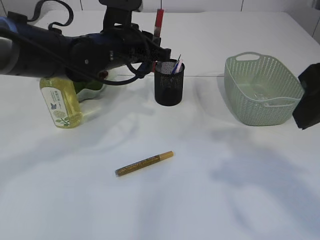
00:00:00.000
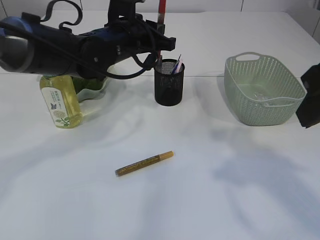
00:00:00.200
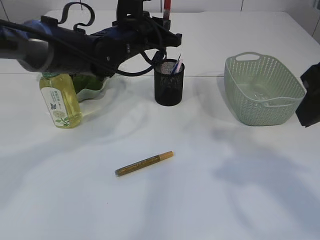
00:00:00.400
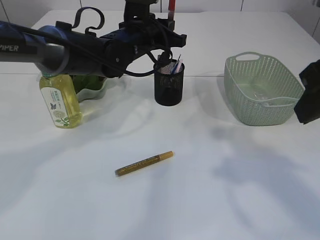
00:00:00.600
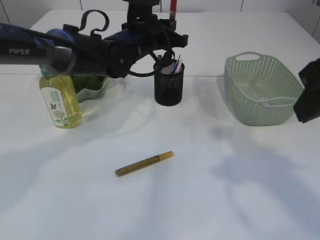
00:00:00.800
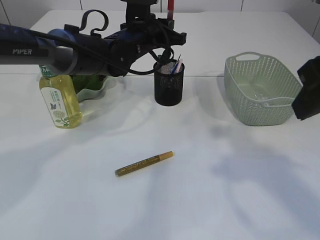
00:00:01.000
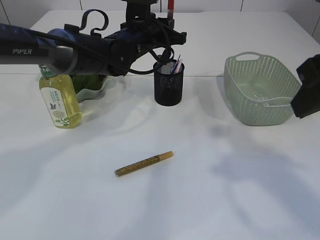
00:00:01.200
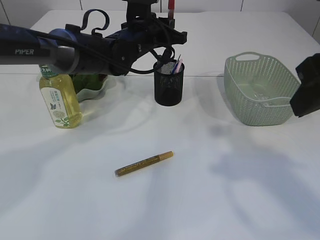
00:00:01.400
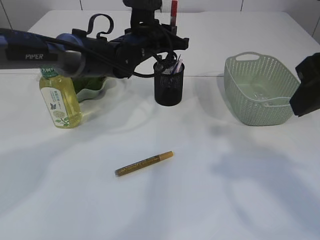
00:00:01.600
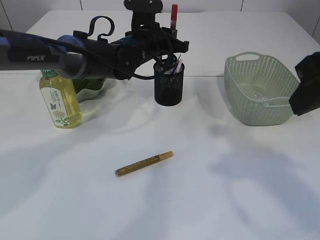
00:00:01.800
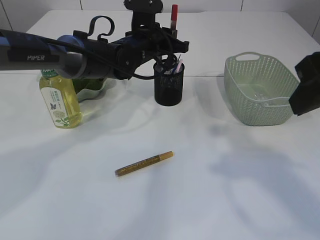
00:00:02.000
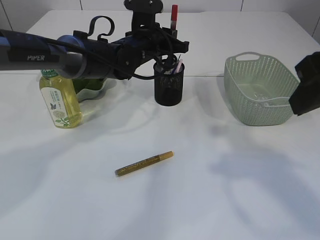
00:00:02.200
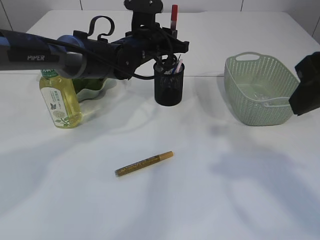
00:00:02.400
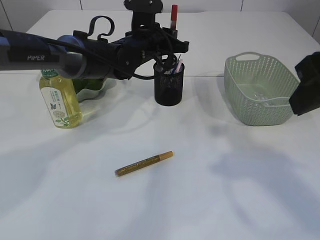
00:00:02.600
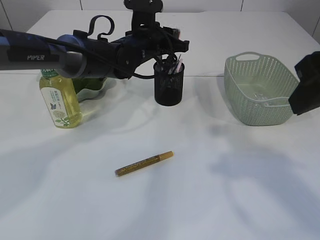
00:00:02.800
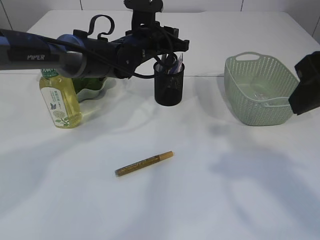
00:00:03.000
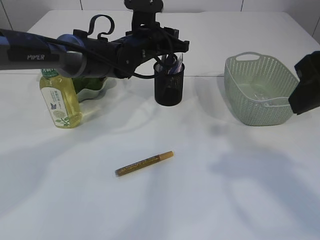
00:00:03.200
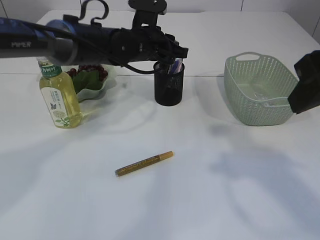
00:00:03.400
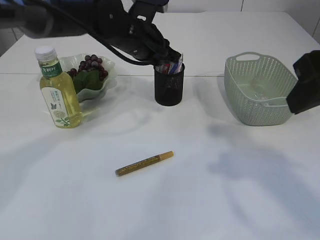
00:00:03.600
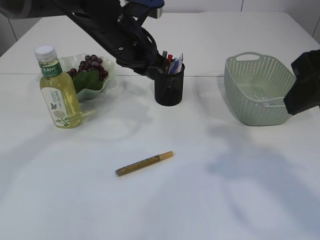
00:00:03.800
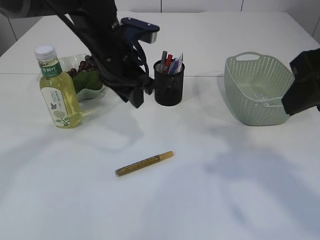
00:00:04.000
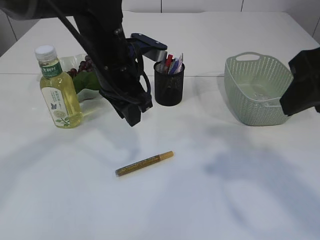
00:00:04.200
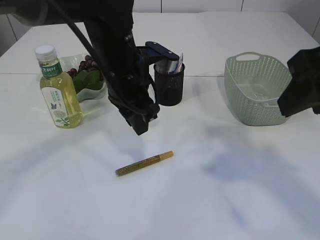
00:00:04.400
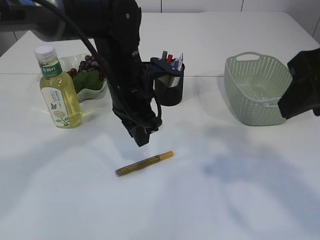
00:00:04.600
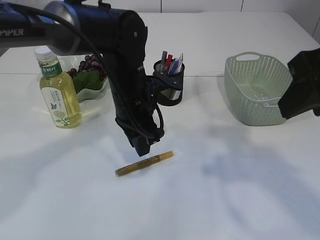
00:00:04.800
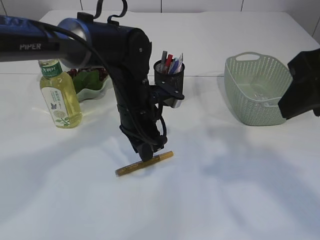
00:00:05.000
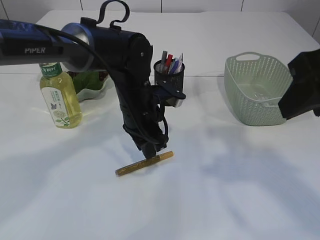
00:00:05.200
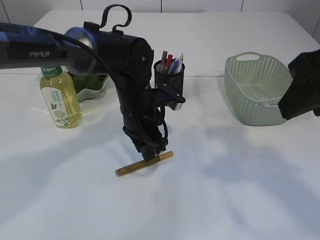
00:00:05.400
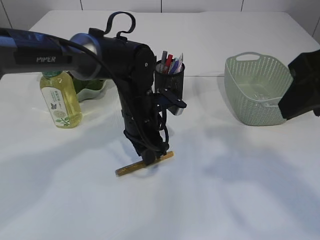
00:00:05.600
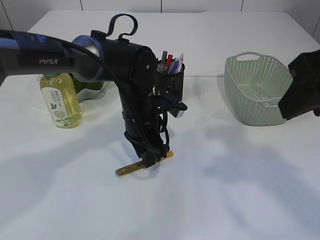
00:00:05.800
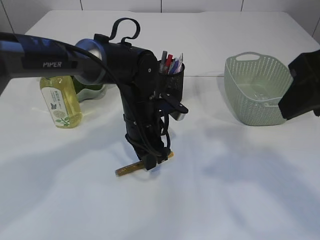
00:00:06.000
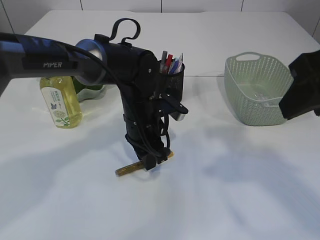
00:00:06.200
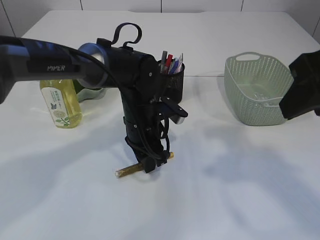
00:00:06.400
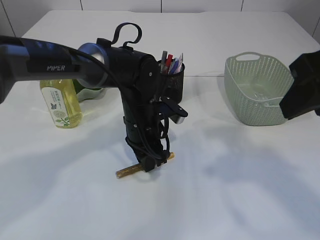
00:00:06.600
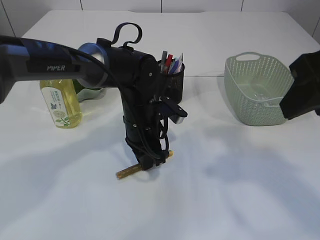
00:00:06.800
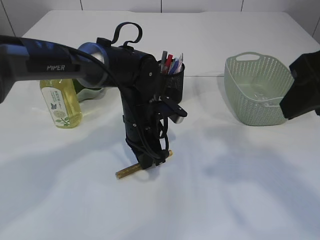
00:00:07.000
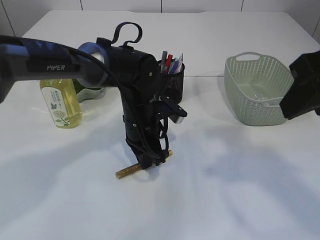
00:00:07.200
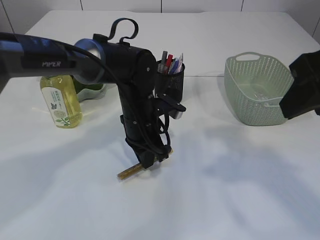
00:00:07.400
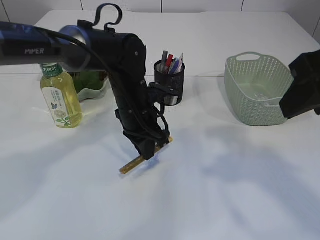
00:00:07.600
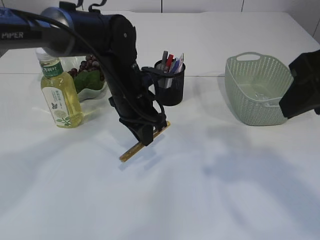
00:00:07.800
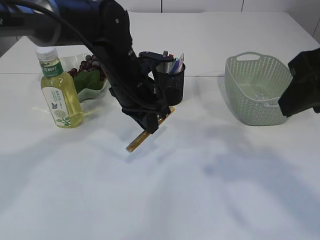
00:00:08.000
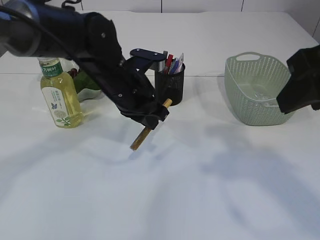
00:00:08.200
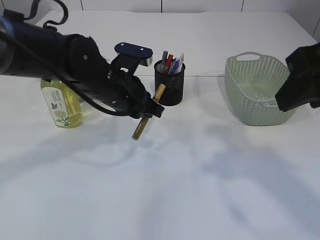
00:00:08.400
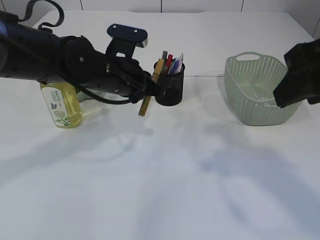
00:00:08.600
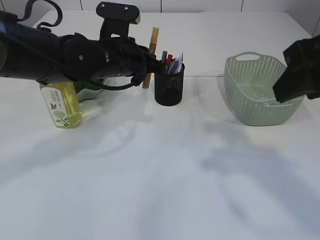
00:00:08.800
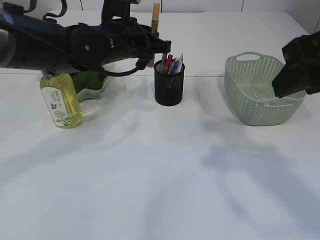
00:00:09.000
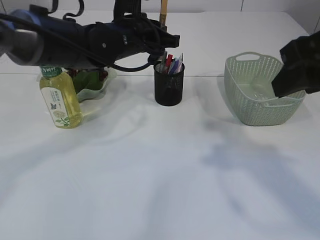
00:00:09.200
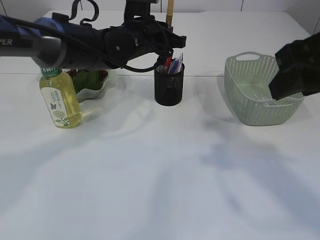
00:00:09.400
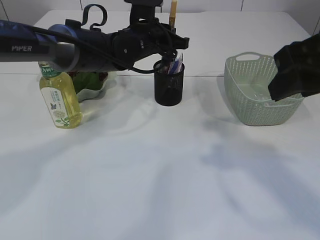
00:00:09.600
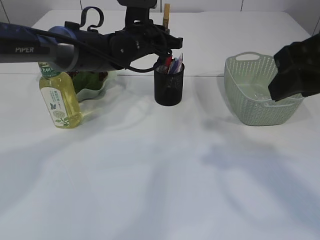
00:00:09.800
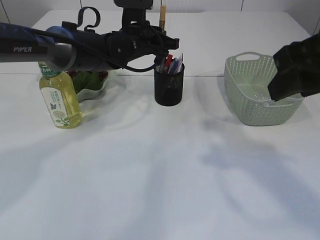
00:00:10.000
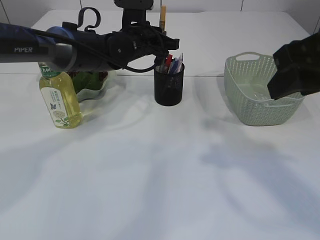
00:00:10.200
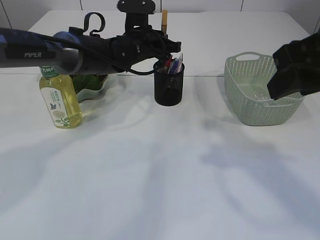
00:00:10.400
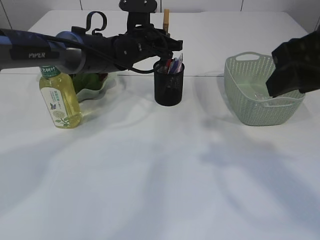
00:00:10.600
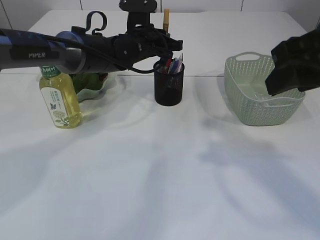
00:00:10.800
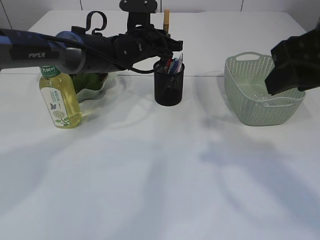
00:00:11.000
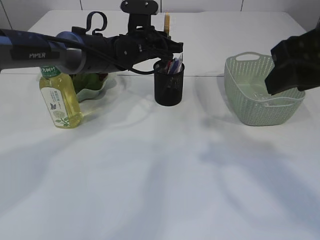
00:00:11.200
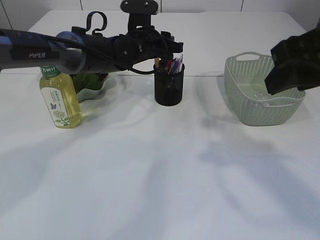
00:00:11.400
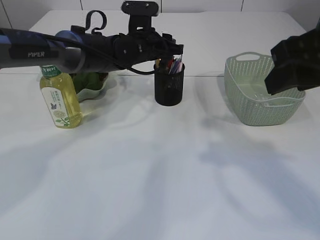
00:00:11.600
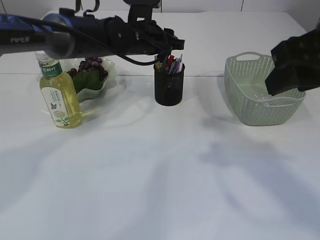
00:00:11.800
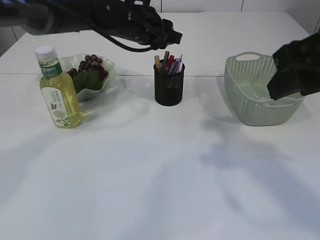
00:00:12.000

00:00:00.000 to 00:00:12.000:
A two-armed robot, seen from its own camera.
Step, 00:00:00.000 to 00:00:04.000: place the red glue into the pen holder.
Step, 00:00:04.200 to 00:00:08.200: pick up the yellow glue.
00:00:00.000 to 00:00:01.600: The left gripper travels forward by some 5 cm.
00:00:01.600 to 00:00:03.000: Neither gripper changes place.
00:00:03.000 to 00:00:04.400: The left gripper moves backward, some 10 cm.
00:00:04.400 to 00:00:06.000: The left gripper heads downward, covering roughly 10 cm.
00:00:06.000 to 00:00:07.600: The grippers move only a little.
00:00:07.600 to 00:00:09.000: The left gripper heads upward, covering roughly 10 cm.
00:00:09.000 to 00:00:10.400: The left gripper is displaced forward by roughly 10 cm.
00:00:10.400 to 00:00:12.000: The left gripper goes some 5 cm upward, and opens its fingers.

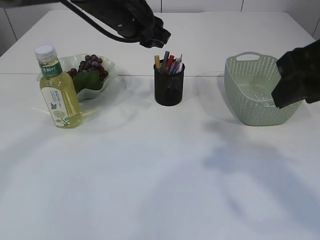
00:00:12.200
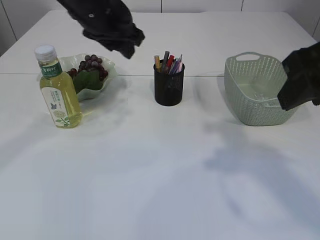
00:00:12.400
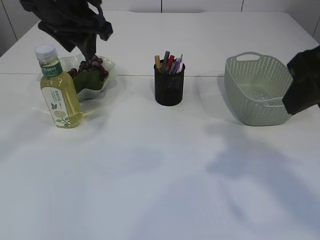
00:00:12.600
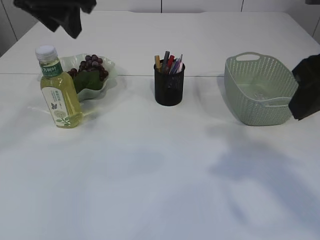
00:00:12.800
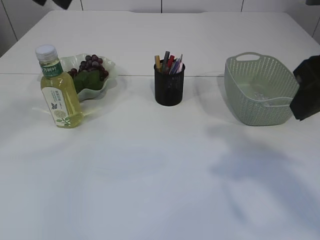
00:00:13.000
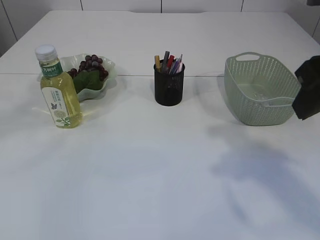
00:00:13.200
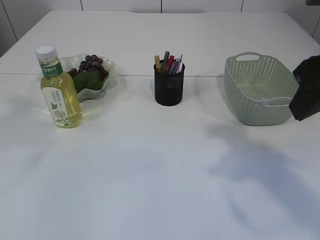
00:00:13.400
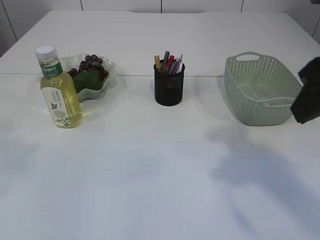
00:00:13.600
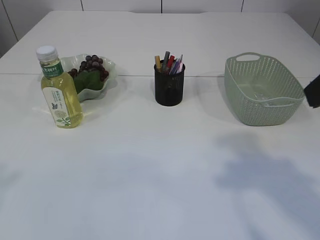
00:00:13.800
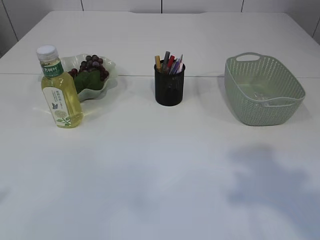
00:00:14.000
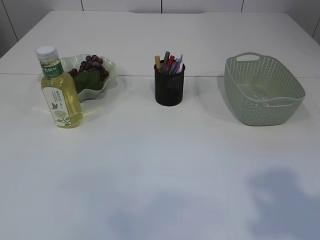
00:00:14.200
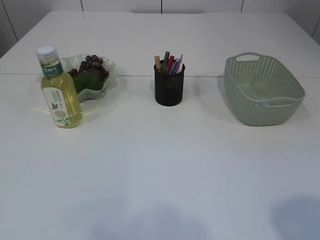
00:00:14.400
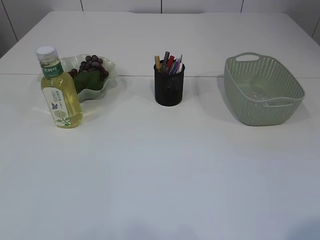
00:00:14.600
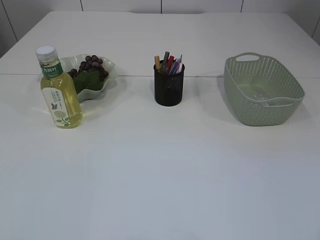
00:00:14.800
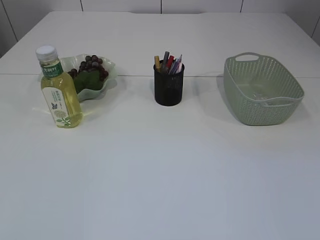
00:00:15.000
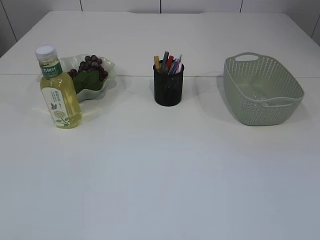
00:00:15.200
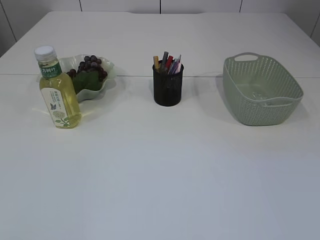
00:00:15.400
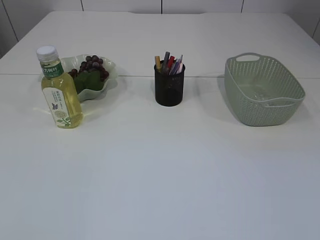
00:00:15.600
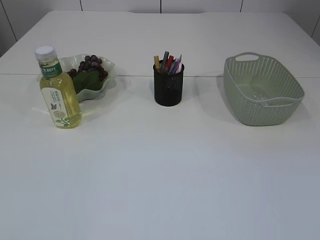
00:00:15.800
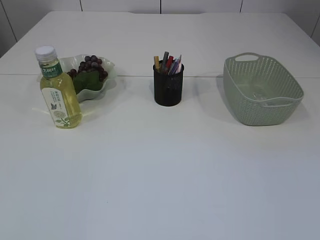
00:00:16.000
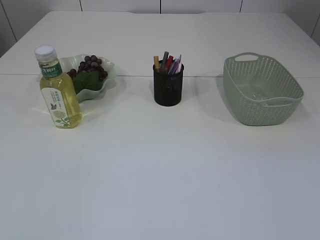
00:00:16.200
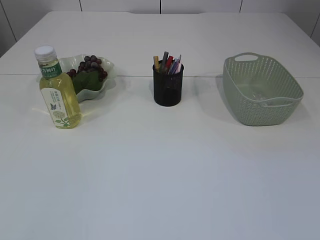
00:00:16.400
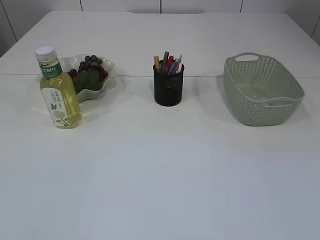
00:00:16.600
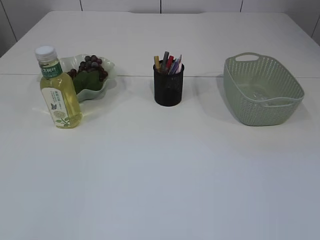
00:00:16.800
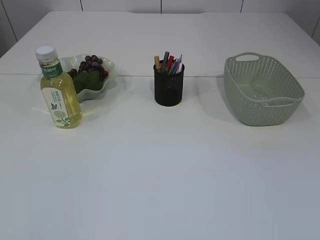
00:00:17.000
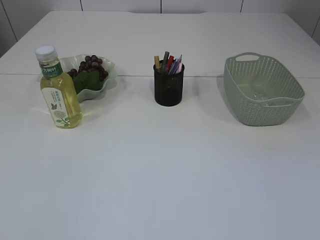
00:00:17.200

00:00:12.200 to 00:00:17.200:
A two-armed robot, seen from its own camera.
00:00:12.200 to 00:00:13.800: The left gripper goes roughly 40 cm backward, to the left and upward; the right gripper moves about 5 cm.

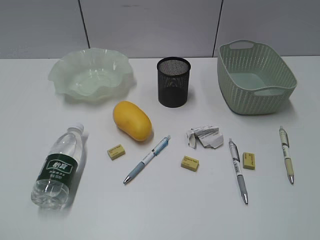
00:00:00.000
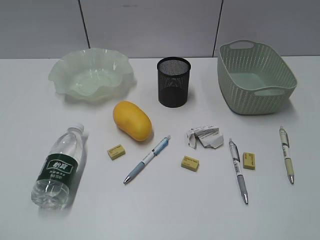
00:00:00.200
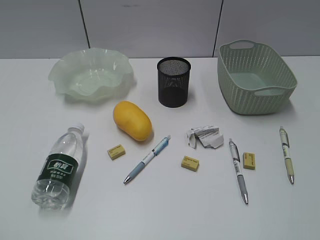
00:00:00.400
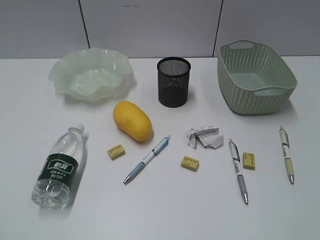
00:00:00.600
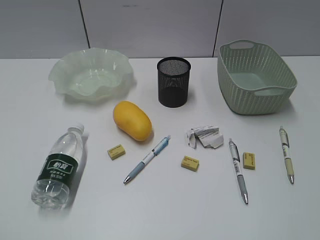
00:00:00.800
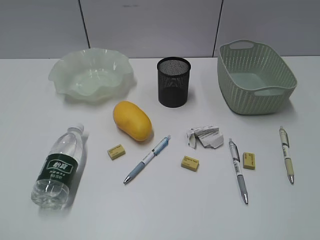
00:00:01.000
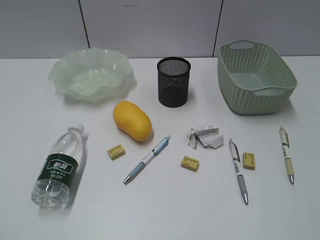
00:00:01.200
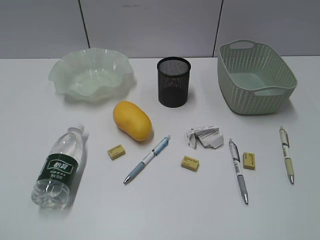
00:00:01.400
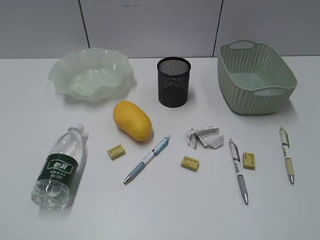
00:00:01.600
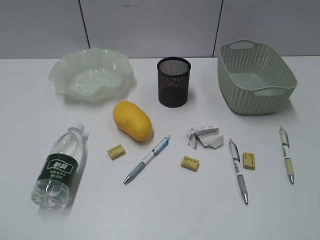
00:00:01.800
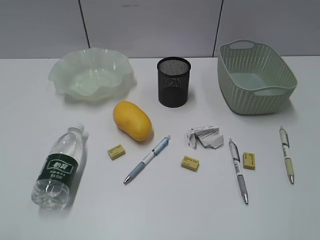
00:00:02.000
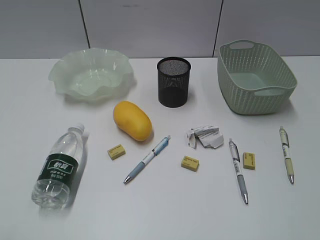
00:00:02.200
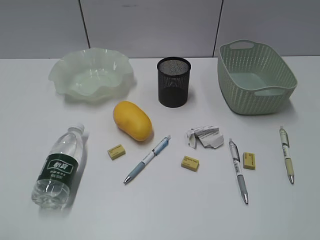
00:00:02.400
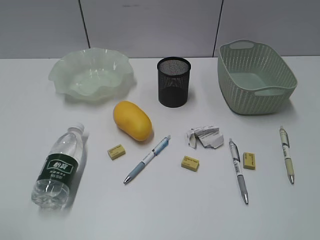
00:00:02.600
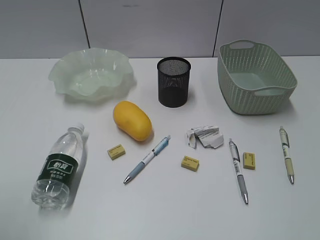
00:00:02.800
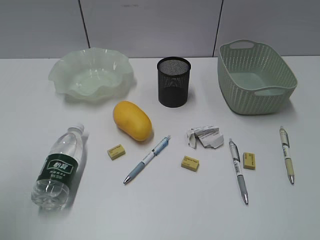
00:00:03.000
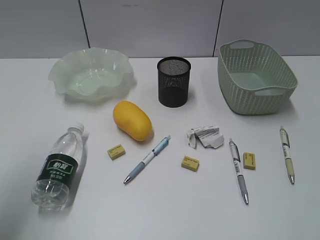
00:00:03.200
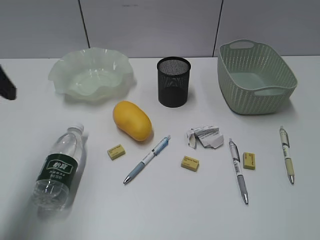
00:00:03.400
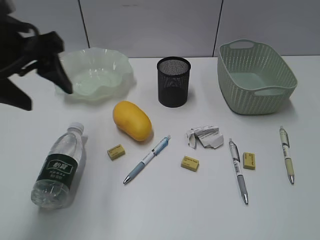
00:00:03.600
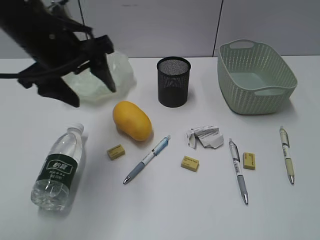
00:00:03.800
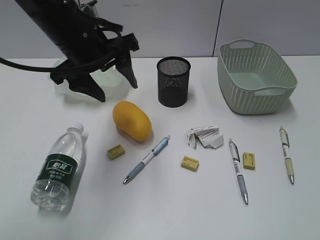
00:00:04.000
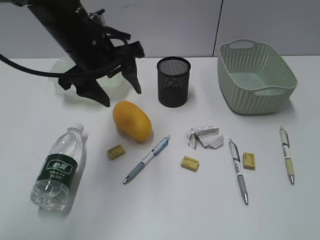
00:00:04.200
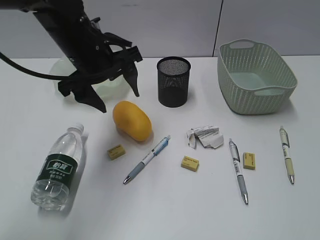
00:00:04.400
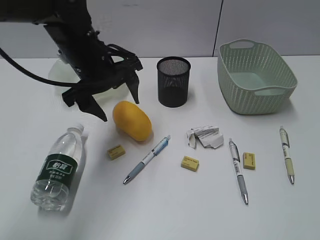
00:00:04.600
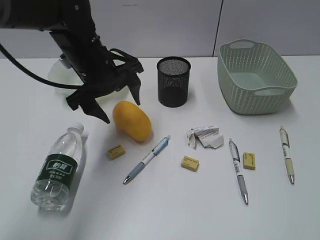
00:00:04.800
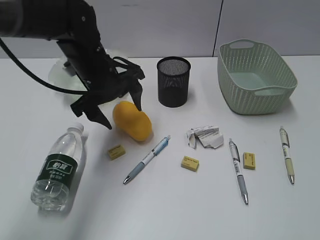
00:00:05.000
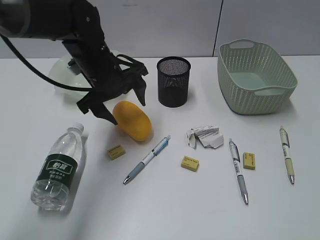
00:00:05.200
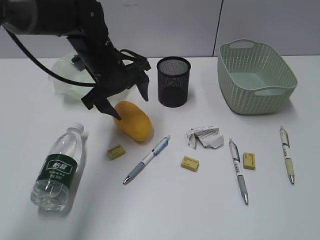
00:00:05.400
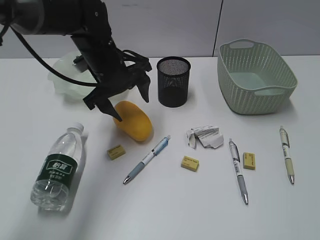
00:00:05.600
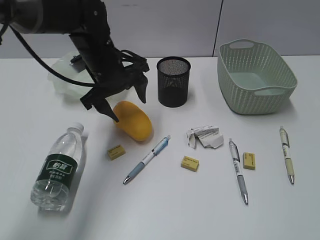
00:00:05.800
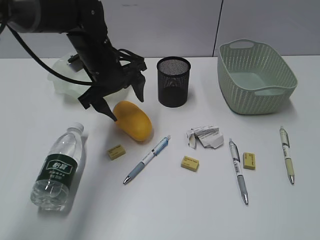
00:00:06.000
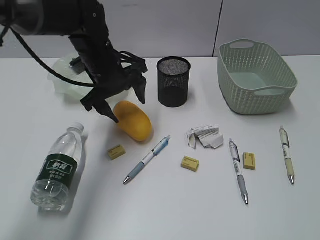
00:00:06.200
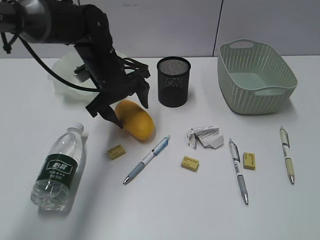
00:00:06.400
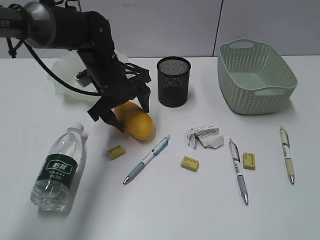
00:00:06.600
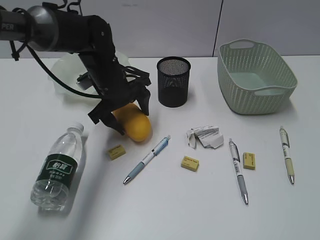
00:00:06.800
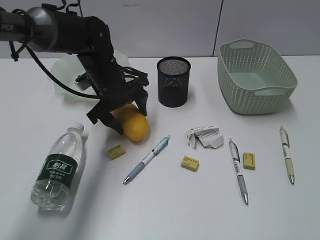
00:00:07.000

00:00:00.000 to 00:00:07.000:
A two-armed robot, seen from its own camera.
00:00:02.800 to 00:00:04.200: The left gripper travels forward and to the right by roughly 35 cm.
00:00:04.200 to 00:00:05.600: The left gripper heads downward, covering approximately 5 cm.
00:00:05.600 to 00:00:07.000: There are only small adjustments of the grippers.
